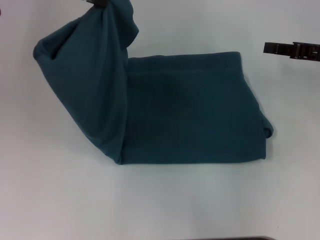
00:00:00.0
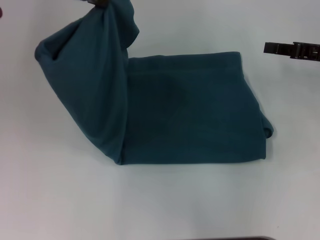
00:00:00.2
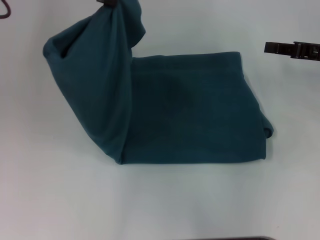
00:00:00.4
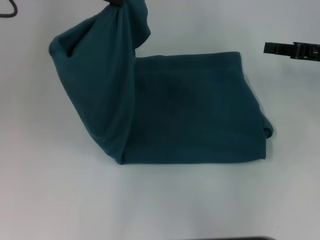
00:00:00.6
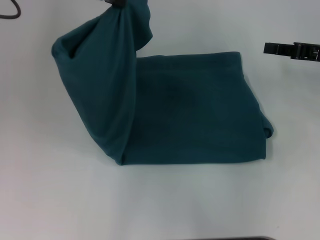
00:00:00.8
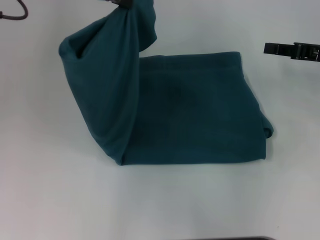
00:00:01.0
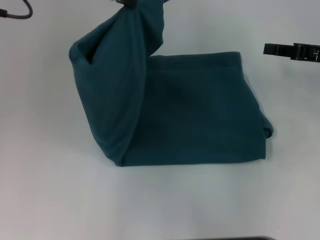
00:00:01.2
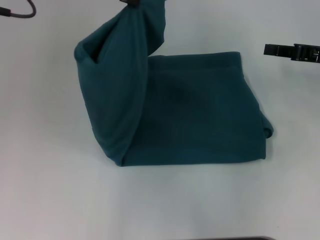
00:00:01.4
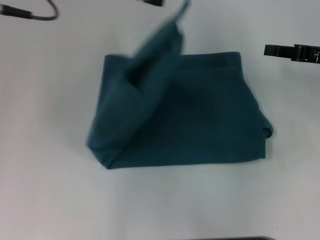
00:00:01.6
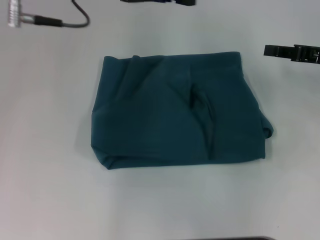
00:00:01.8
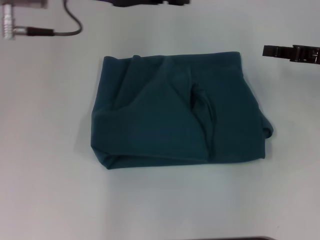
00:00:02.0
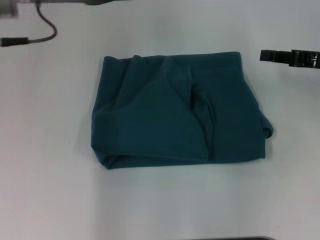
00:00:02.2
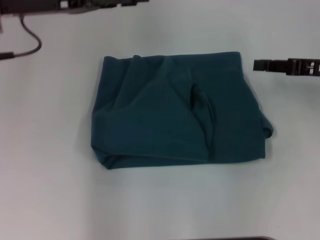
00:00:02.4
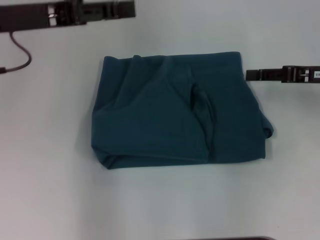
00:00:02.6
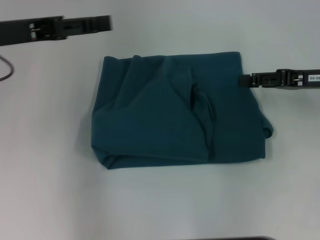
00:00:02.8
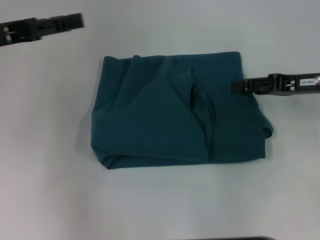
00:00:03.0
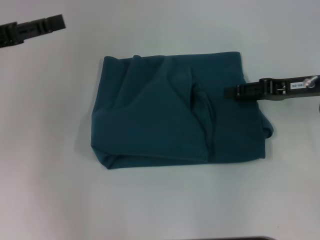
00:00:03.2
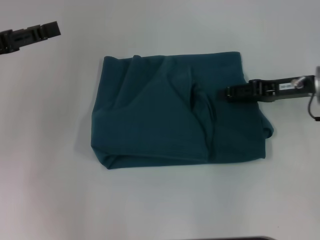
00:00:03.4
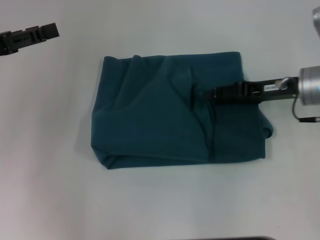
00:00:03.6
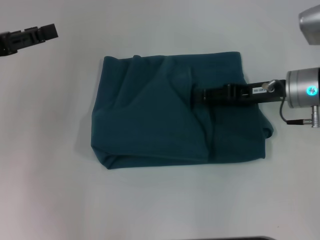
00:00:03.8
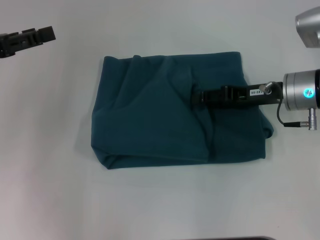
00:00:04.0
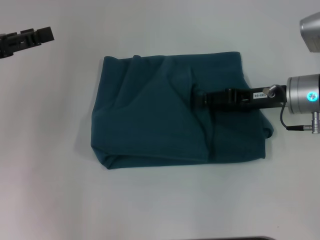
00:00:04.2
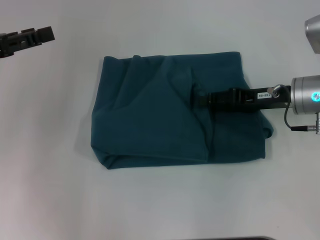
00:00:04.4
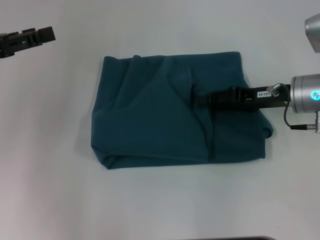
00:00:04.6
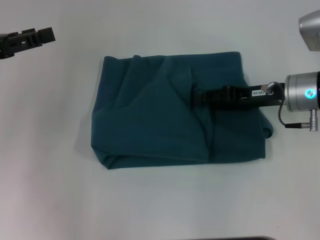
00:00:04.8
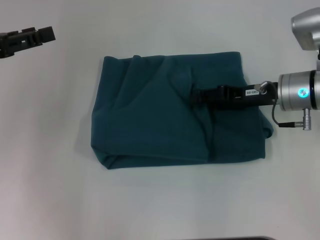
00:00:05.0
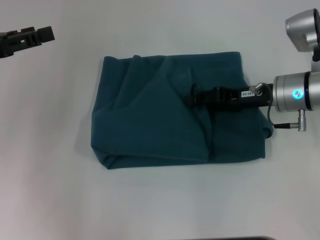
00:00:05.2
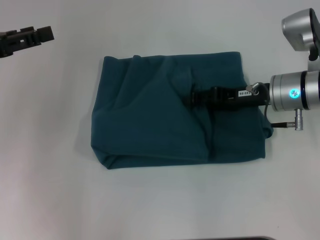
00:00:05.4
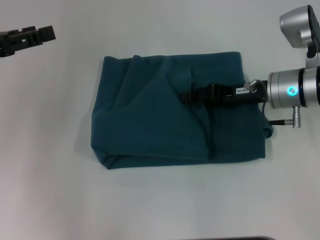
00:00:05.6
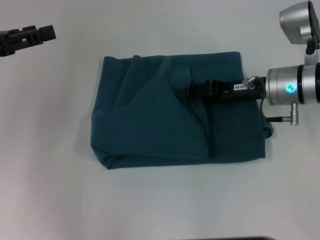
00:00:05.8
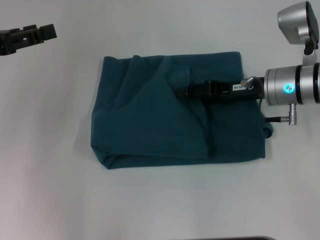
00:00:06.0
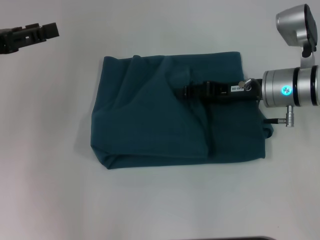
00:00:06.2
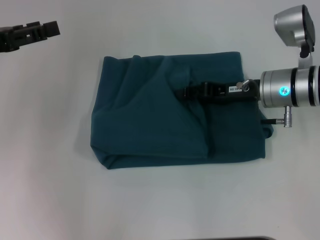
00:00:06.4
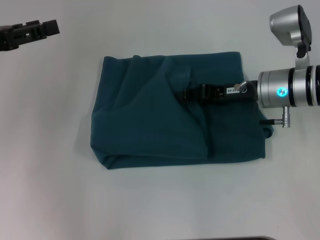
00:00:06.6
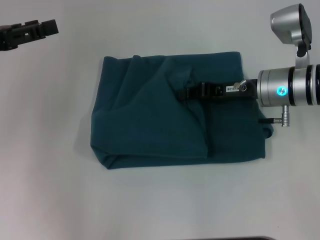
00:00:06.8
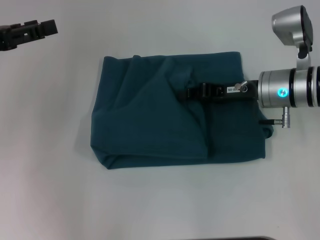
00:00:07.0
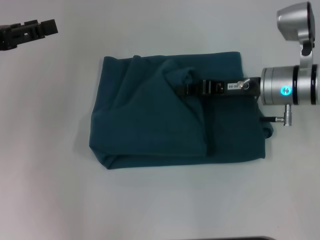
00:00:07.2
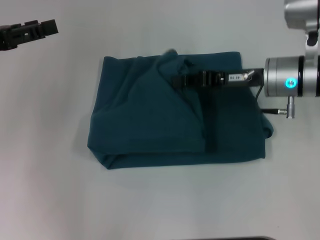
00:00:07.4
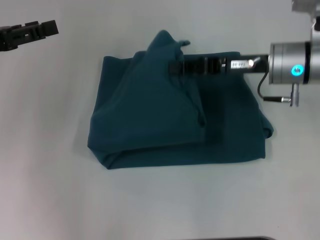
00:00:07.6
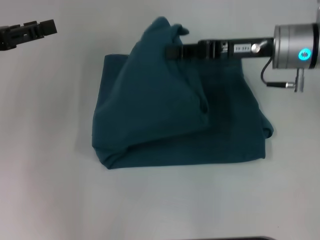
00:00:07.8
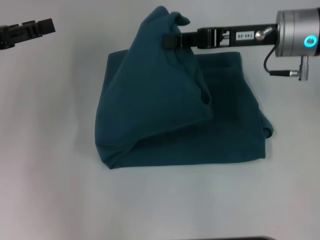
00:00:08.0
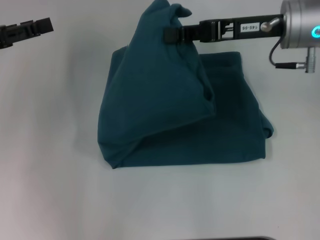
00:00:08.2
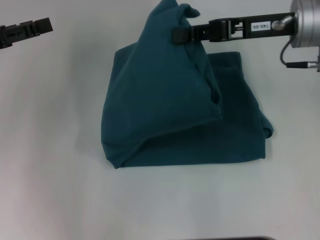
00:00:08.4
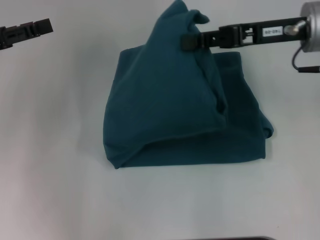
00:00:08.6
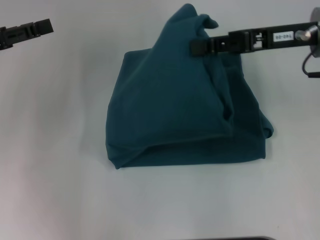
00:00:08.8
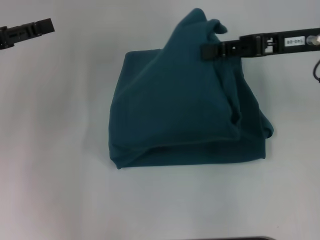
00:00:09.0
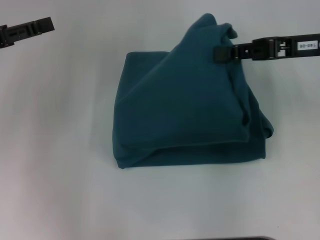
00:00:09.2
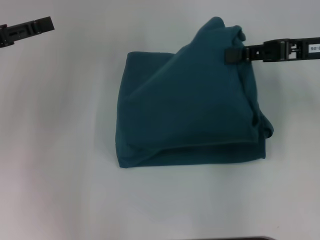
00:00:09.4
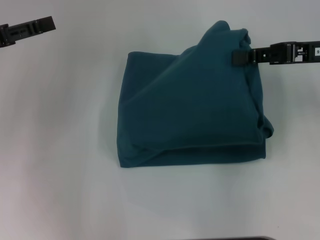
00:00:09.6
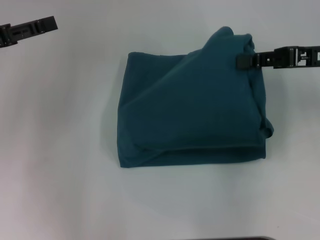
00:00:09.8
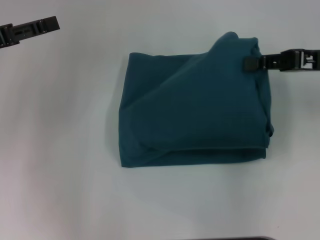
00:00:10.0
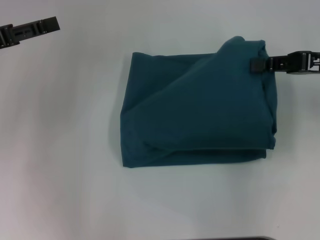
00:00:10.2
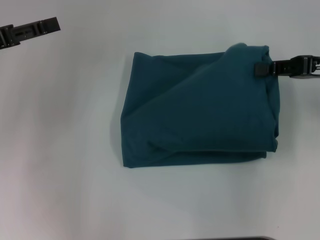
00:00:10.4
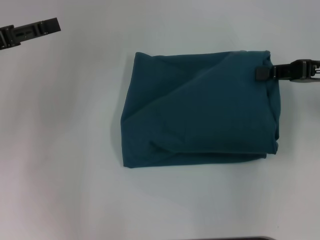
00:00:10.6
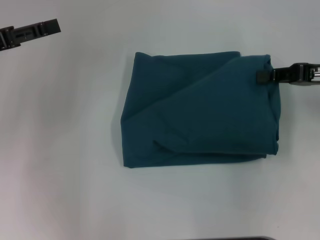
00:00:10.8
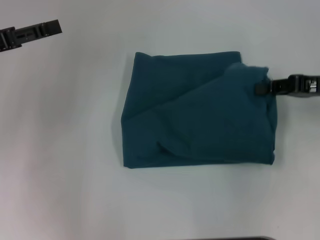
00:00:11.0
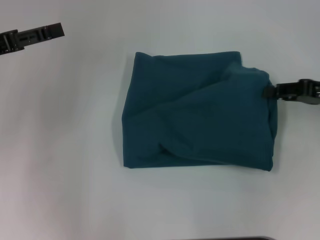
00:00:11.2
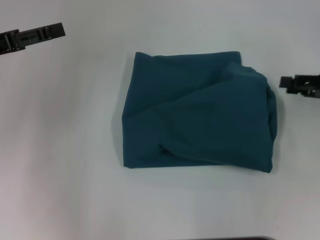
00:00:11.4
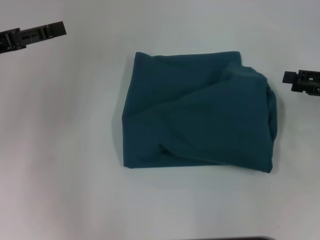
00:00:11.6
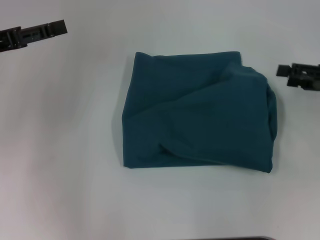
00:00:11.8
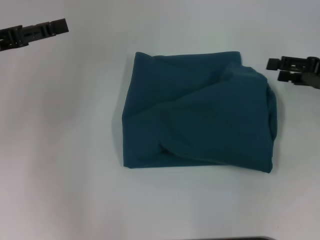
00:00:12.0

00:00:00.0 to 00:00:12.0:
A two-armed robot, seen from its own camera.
Step, 00:00:00.0 to 00:00:02.6: Fold the clothes to the left.
00:00:00.0 to 00:00:01.6: The grippers move only a little.
00:00:01.6 to 00:00:03.0: The right gripper opens up. The left gripper is displaced to the left and downward by about 15 cm, and opens up.
00:00:03.0 to 00:00:04.4: The right gripper heads to the left, covering roughly 5 cm.
00:00:04.4 to 00:00:06.0: The grippers move only a little.
00:00:06.0 to 00:00:07.6: The right gripper closes.
00:00:07.6 to 00:00:09.0: The right gripper travels upward by roughly 5 cm.
00:00:09.0 to 00:00:10.4: The right gripper moves to the right, roughly 5 cm.
00:00:10.4 to 00:00:12.0: The right gripper shifts by about 5 cm, and opens its fingers.

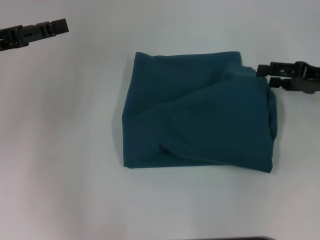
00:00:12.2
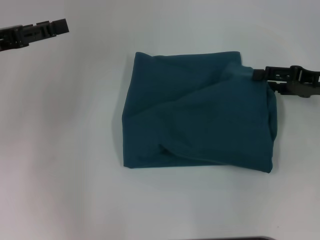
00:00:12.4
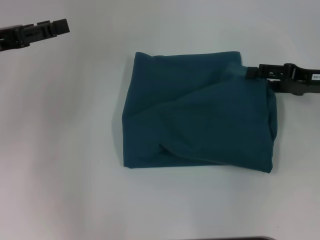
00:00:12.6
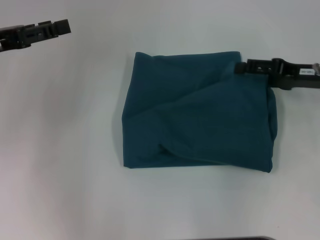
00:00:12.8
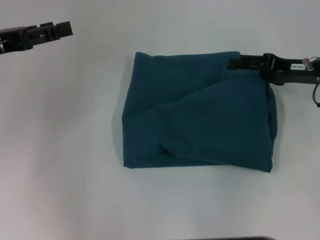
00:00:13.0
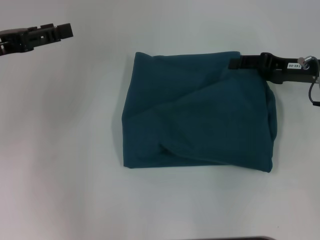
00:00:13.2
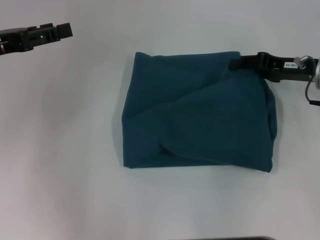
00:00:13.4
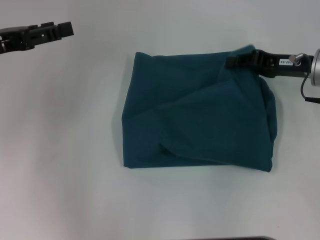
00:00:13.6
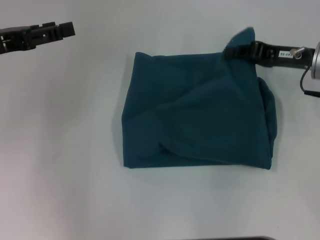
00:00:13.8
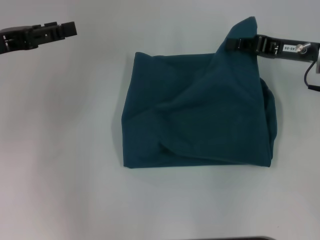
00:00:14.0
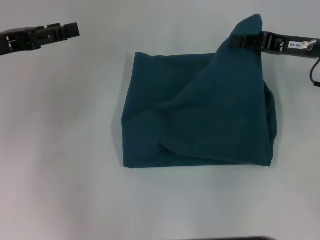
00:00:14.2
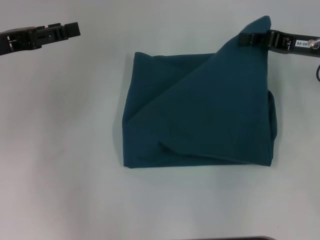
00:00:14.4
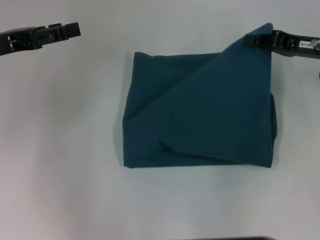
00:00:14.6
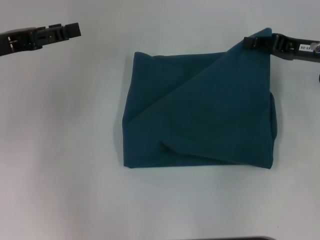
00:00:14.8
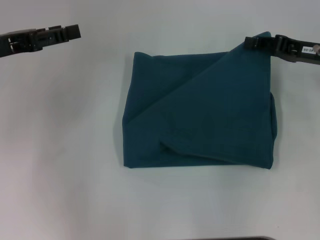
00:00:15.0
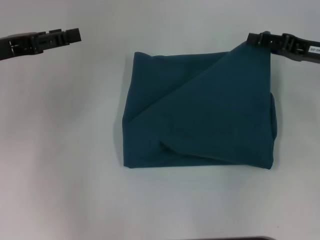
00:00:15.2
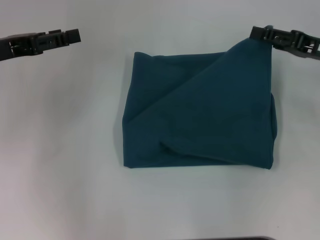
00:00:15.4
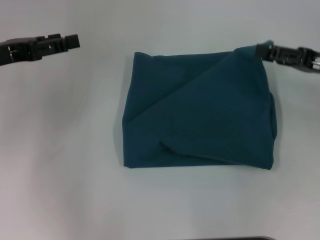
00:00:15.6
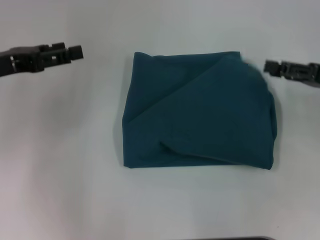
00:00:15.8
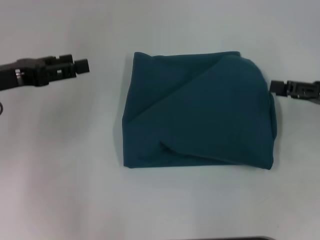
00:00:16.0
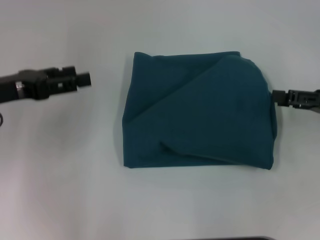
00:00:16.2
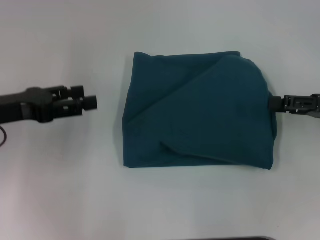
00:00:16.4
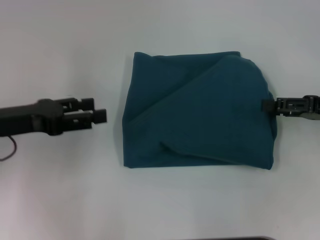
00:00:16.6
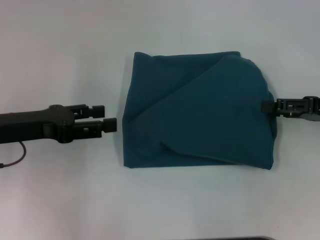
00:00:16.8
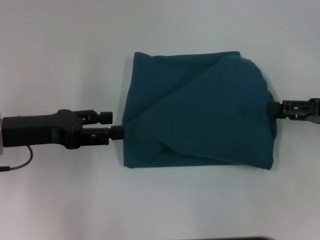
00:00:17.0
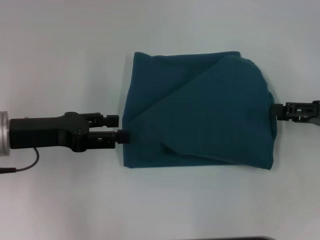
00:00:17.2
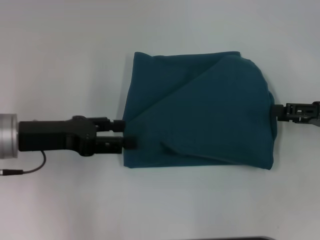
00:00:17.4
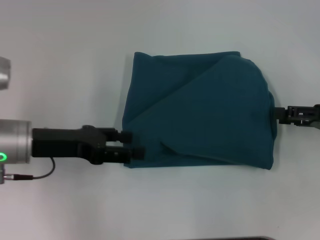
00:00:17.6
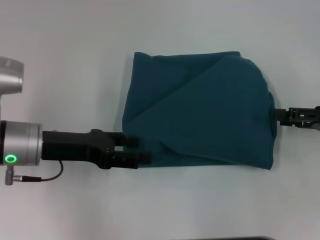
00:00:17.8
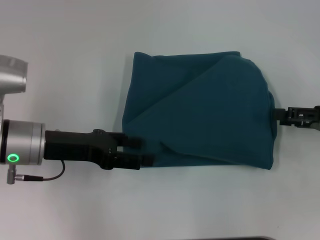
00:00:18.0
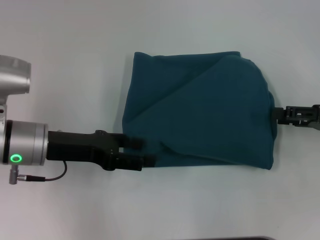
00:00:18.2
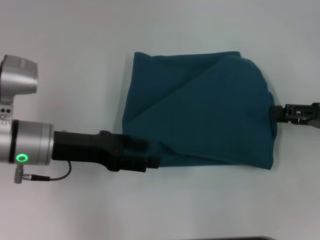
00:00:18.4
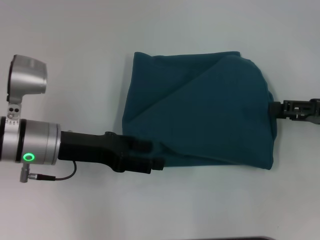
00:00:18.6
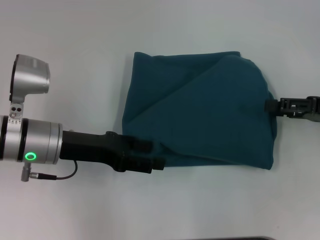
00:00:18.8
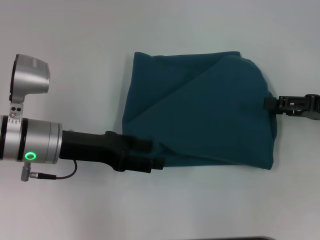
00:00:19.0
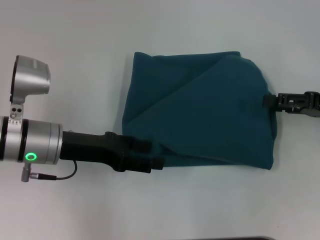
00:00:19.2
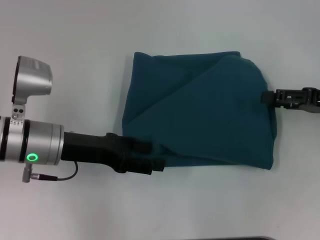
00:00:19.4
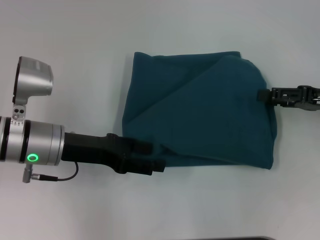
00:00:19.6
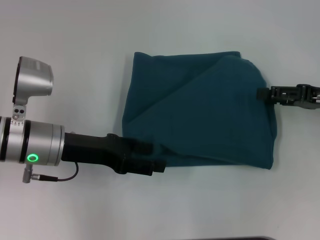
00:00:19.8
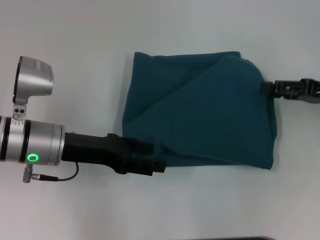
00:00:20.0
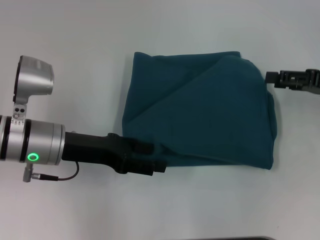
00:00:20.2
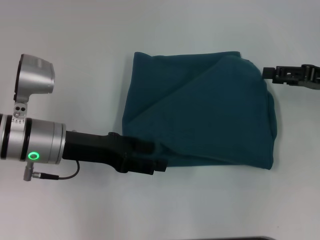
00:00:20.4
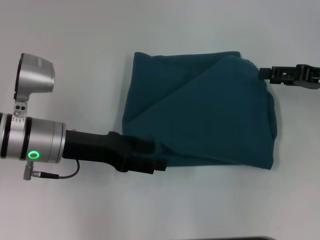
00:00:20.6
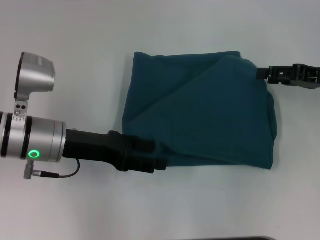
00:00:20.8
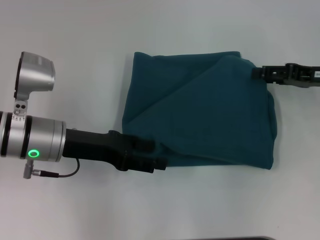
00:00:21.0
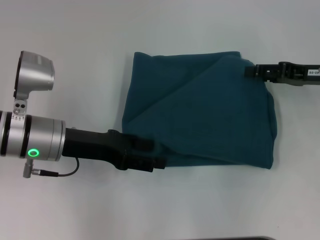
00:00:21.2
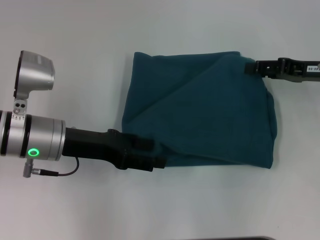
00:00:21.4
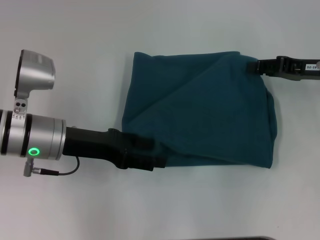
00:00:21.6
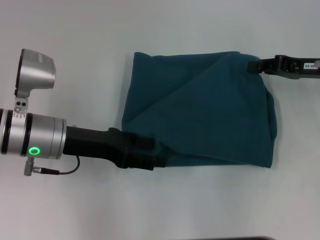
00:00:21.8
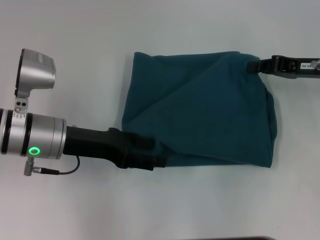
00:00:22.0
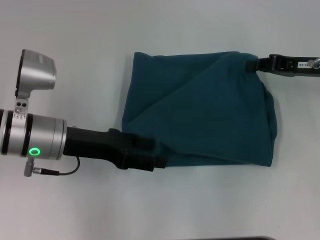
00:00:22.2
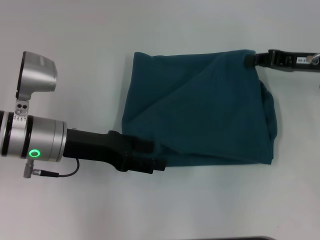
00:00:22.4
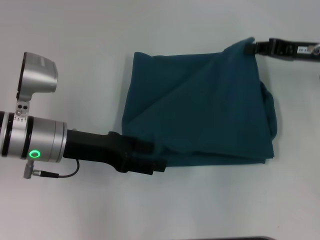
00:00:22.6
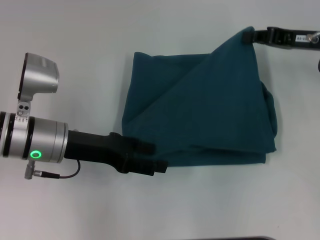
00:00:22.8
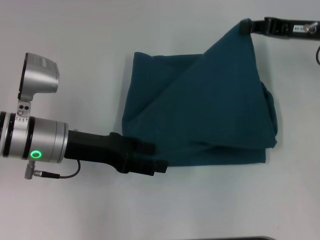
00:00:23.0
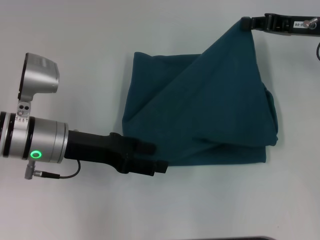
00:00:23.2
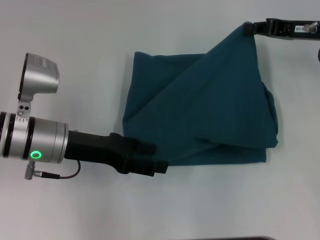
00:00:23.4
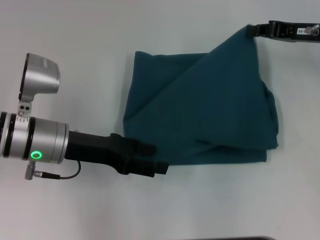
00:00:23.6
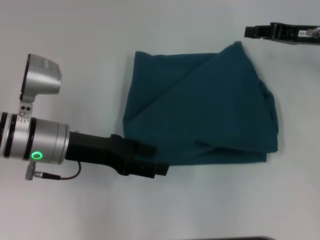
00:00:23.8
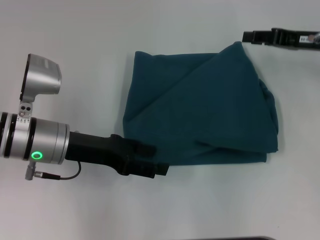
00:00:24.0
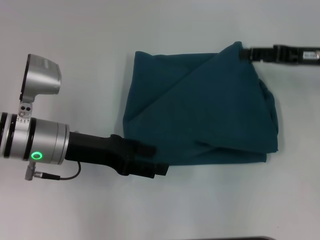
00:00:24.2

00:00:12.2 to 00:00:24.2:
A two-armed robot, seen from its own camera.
00:00:12.2 to 00:00:13.8: The right gripper moves to the left, approximately 5 cm, and closes up.
00:00:13.8 to 00:00:15.2: The grippers make only small movements.
00:00:15.2 to 00:00:16.6: Both grippers move backward, some 5 cm. The right gripper opens up.
00:00:16.6 to 00:00:18.2: The left gripper travels to the right by approximately 5 cm.
00:00:18.2 to 00:00:19.8: There are only small adjustments of the grippers.
00:00:19.8 to 00:00:21.2: The grippers stay close to where they were, moving slightly.
00:00:21.2 to 00:00:22.6: The right gripper closes its fingers.
00:00:22.6 to 00:00:24.2: The right gripper opens.
